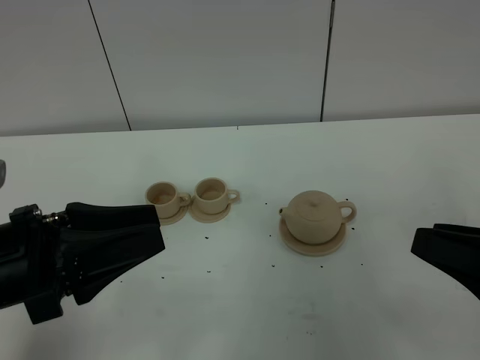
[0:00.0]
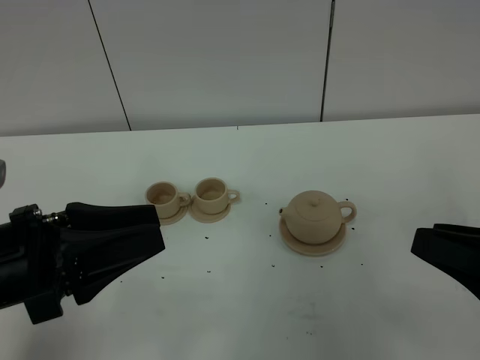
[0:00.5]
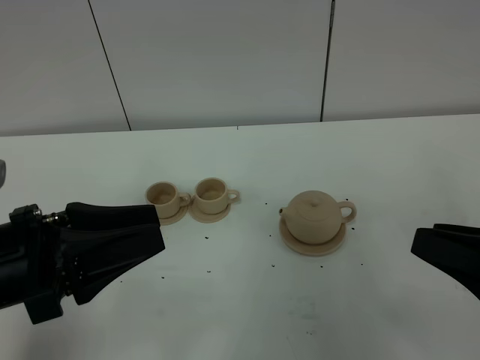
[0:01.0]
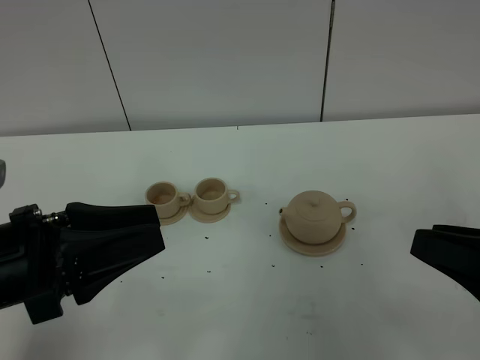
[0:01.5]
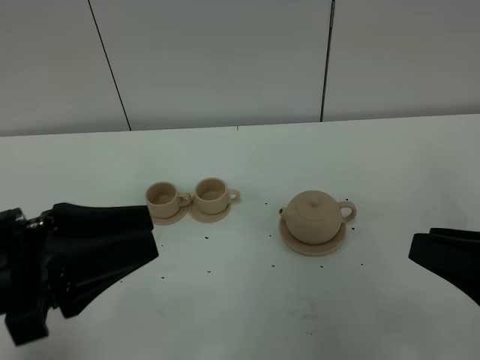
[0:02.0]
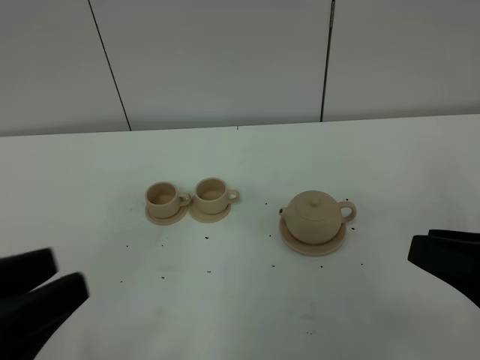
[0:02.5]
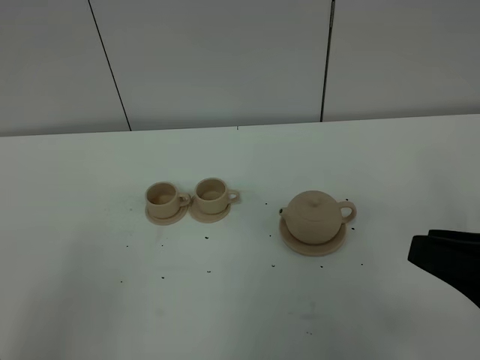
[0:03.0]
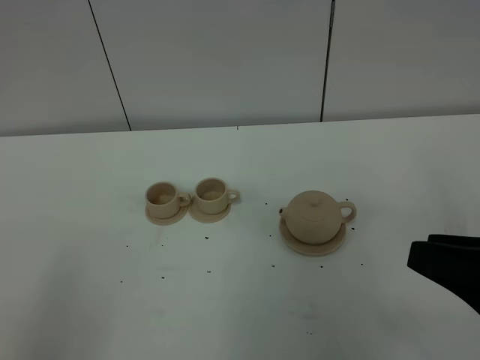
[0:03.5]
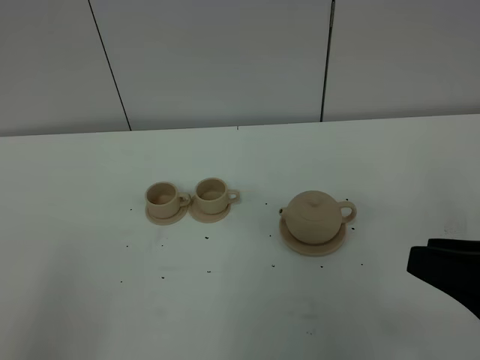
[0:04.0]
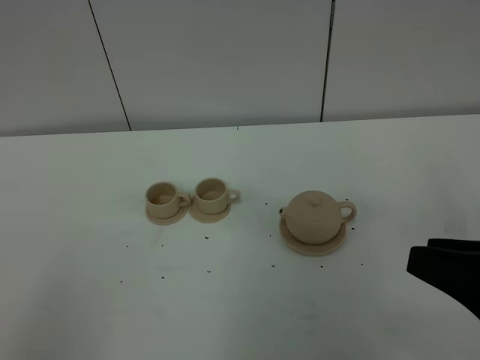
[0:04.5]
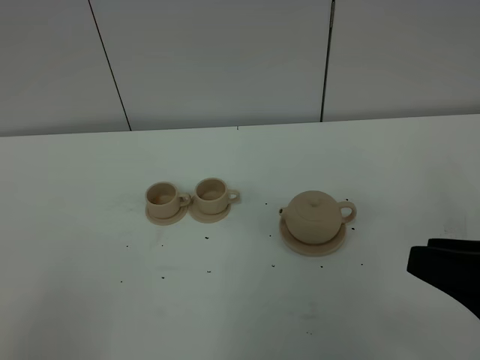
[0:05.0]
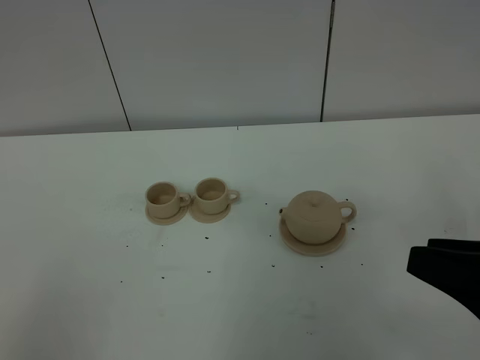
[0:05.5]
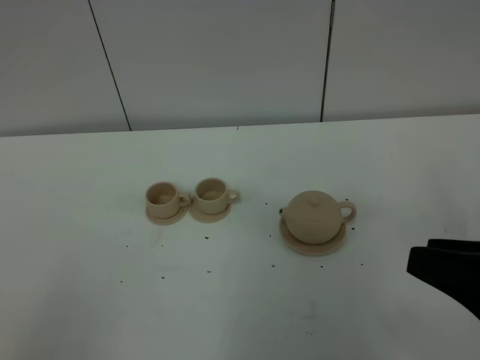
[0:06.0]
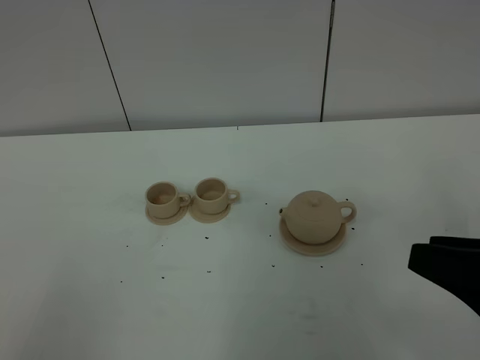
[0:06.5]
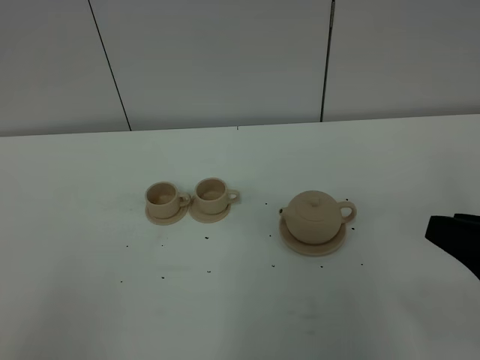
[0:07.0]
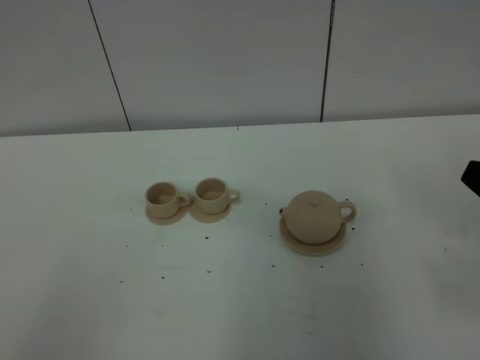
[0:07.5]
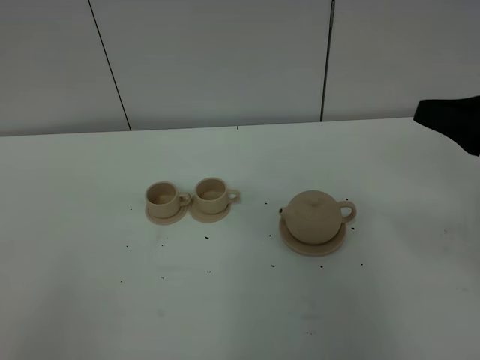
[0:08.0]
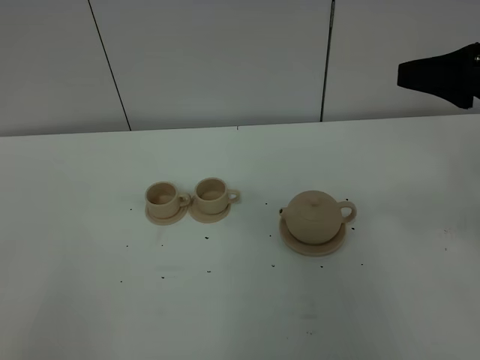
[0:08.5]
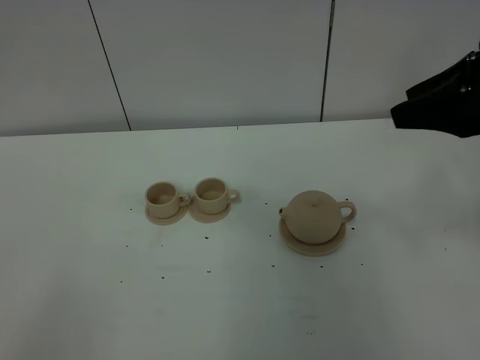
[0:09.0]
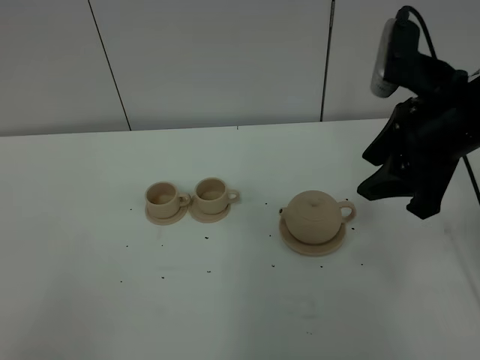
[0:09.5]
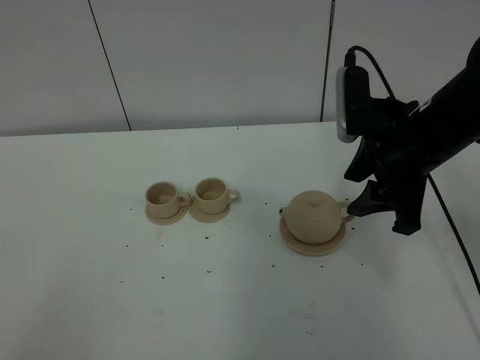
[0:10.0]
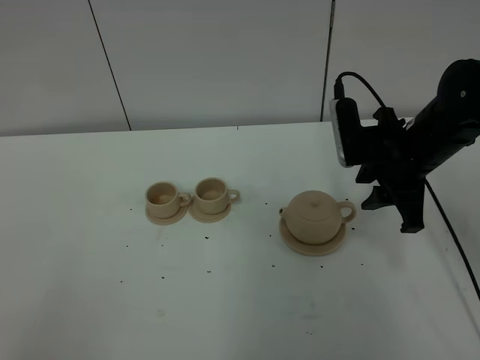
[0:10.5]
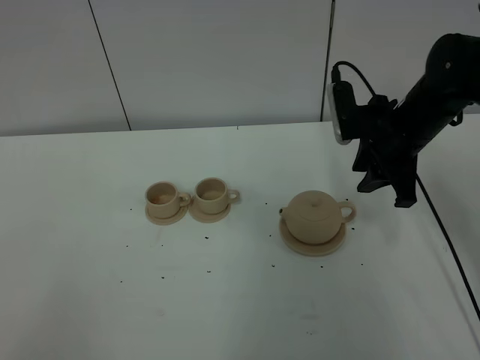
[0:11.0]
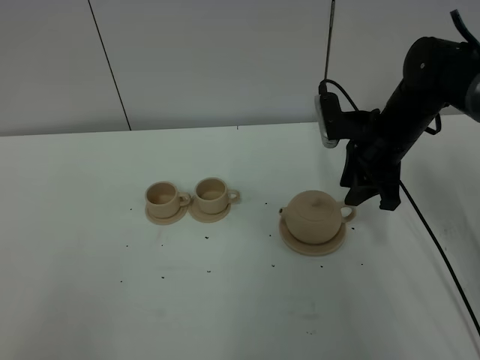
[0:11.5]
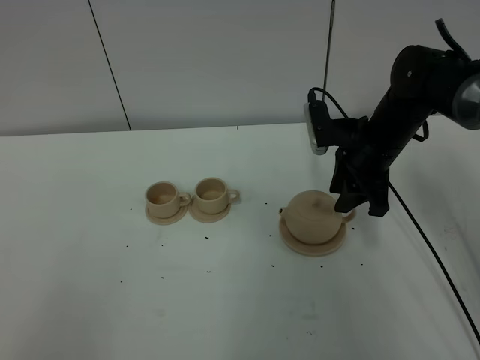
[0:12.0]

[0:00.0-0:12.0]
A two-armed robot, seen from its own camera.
Task of the whole recording: grasp the brown teapot and pour the tea into the two brown teacups one by one, put the brown teapot back in its original place.
0.0 to 2.0 s: There are only small adjustments of the grippers.
2.0 to 4.0 s: The left gripper moves backward and to the left, approximately 15 cm.
6.0 to 8.0 s: The right gripper moves forward, some 15 cm.
8.0 to 10.0 s: The right gripper goes some 10 cm to the left and forward.
10.0 to 12.0 s: The right gripper shifts about 15 cm forward and downward.

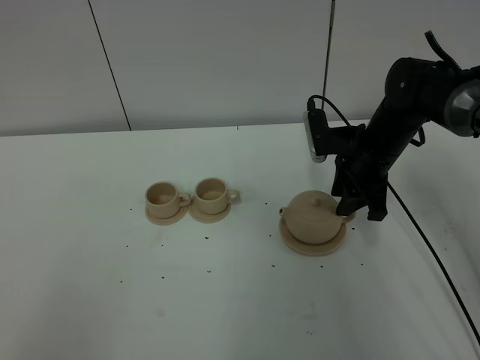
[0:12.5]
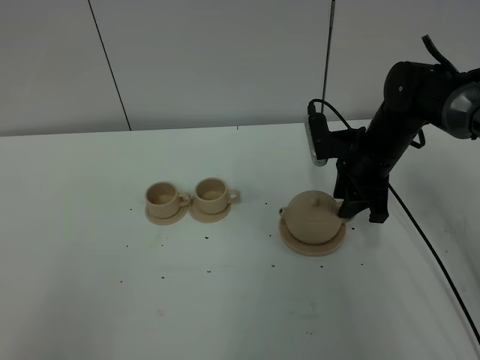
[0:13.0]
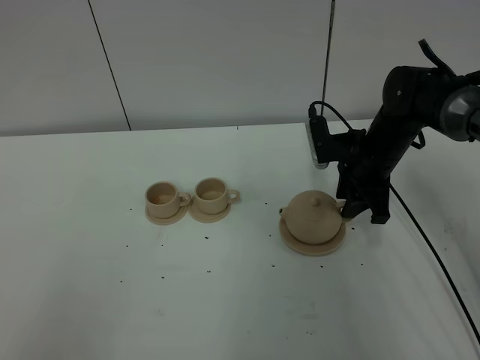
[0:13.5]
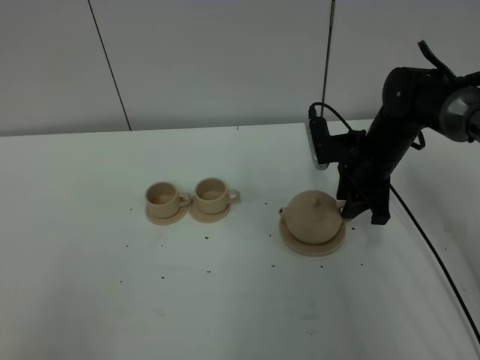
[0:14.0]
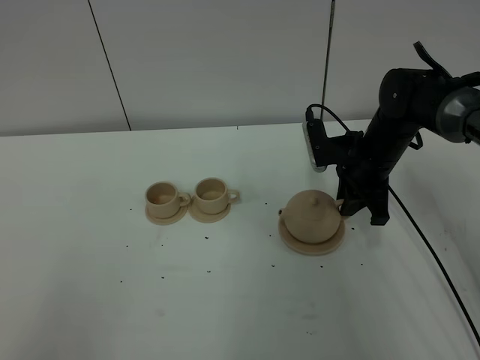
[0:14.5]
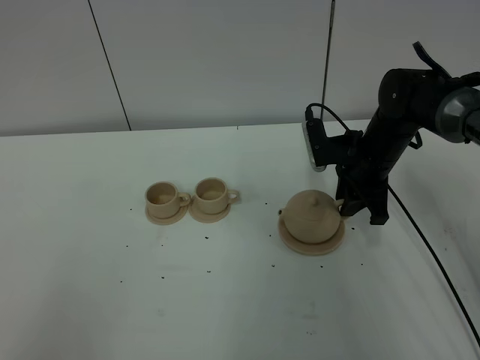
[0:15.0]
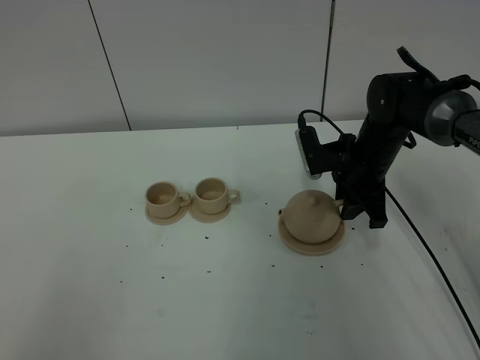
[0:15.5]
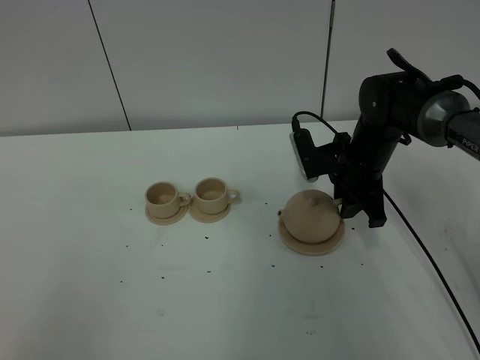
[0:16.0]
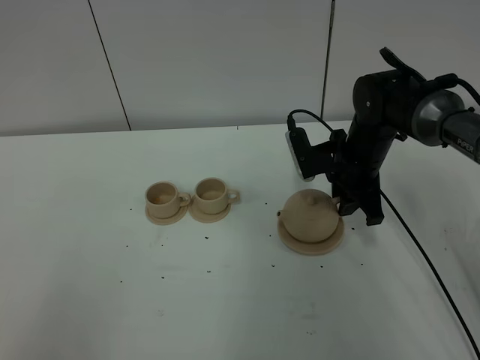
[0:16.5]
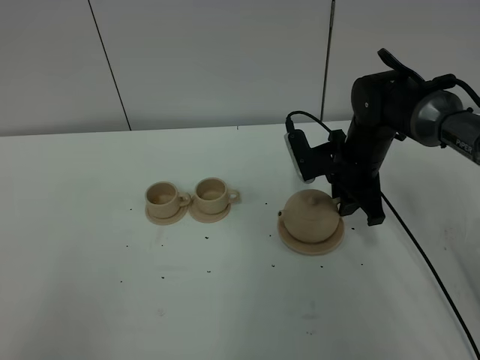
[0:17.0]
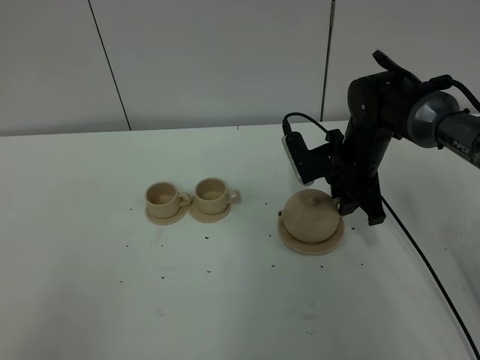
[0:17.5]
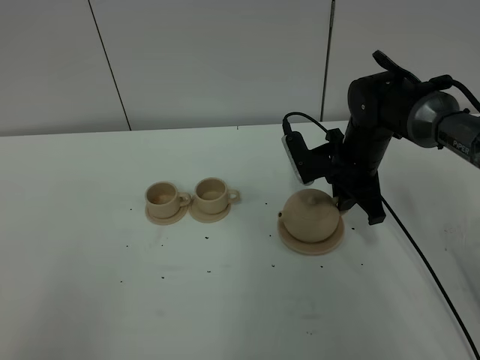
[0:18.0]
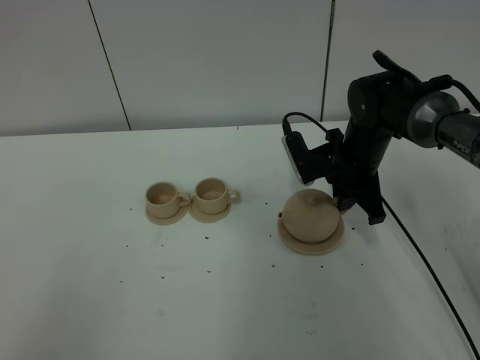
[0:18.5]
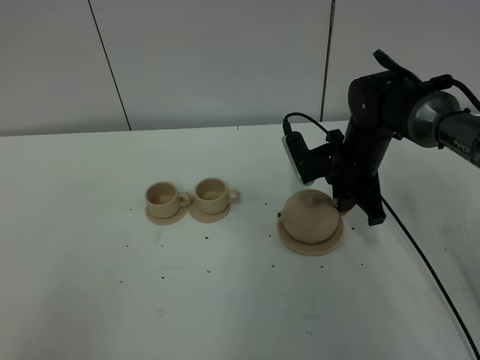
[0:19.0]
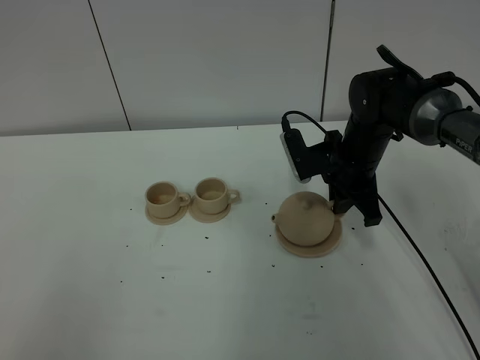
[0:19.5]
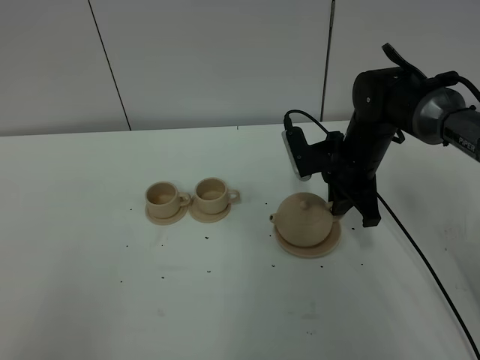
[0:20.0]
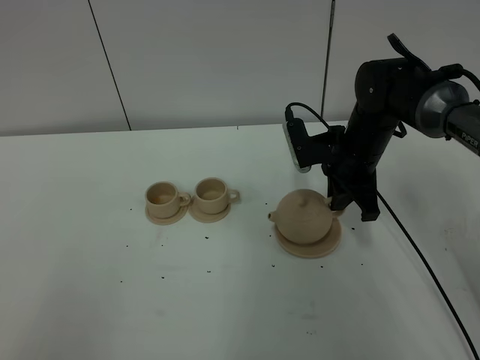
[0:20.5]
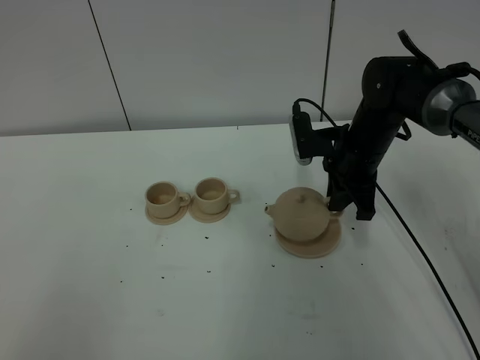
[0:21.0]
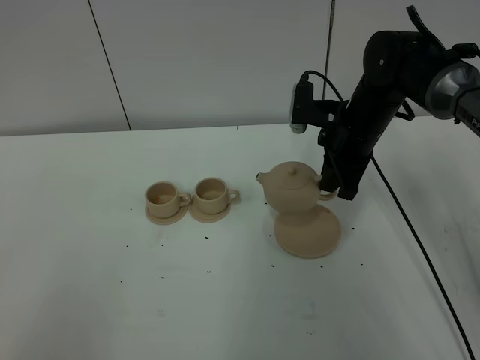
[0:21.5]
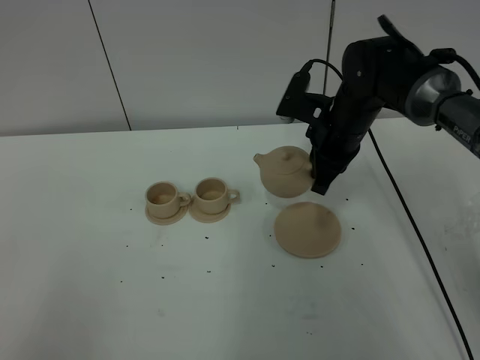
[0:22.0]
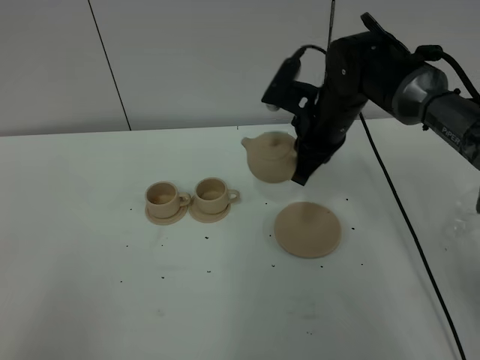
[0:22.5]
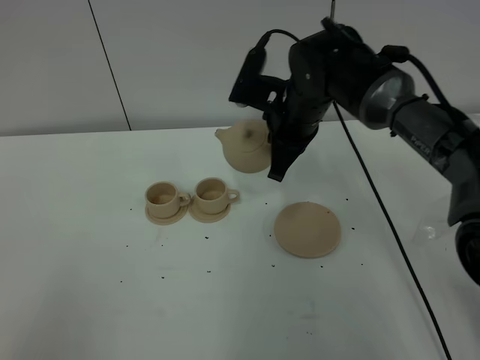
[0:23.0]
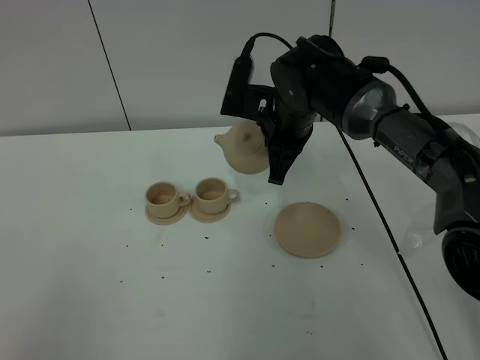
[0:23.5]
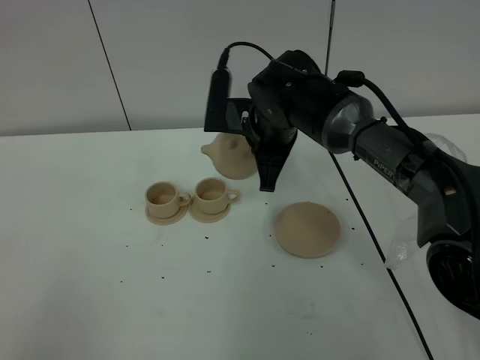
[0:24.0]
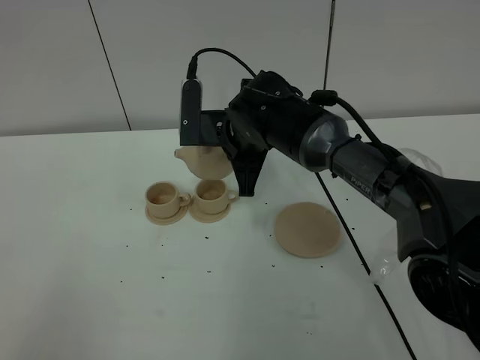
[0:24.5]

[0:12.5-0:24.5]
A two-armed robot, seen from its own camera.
Task of the whole recording: grasp the brown teapot and pour the tea into the two brown teacups one by one, put the brown teapot back in its original place.
Step, 12.5 to 20.5 s: Pick up the teapot with the right gripper.
12.5 to 14.5 s: The right gripper closes its fingers.
14.5 to 16.5 s: The grippers move only a little.
16.5 to 18.5 s: The right gripper closes its fingers.
18.5 to 20.5 s: The grippers stay close to where they were, moving slightly.
20.5 to 22.5 s: The right gripper goes roughly 5 cm upward.
22.5 to 24.5 s: The right gripper goes approximately 10 cm to the left.

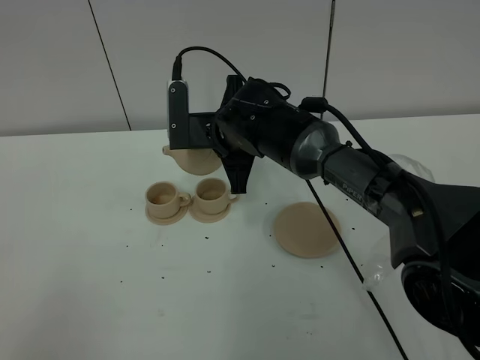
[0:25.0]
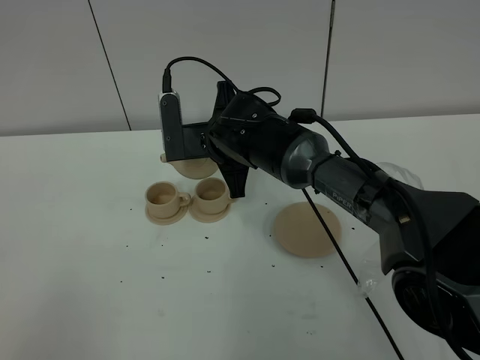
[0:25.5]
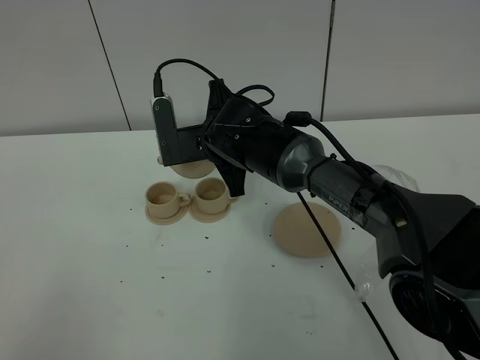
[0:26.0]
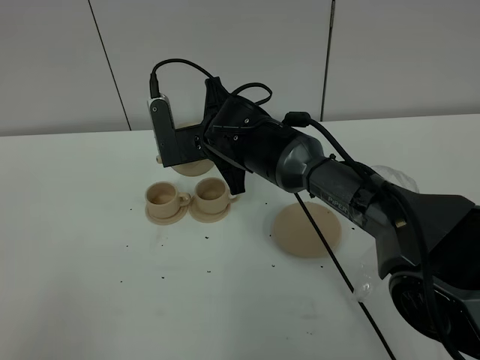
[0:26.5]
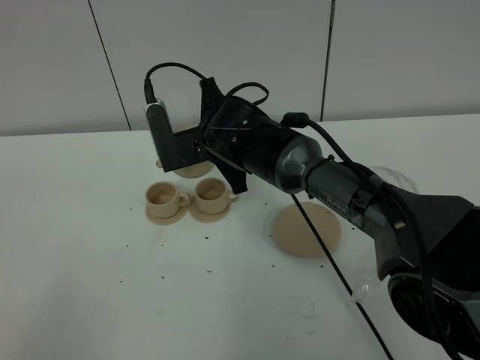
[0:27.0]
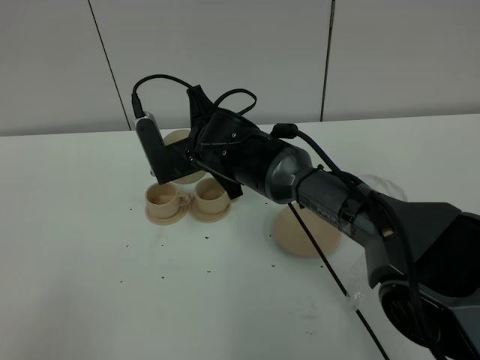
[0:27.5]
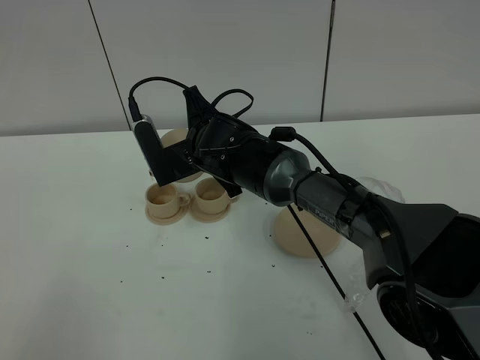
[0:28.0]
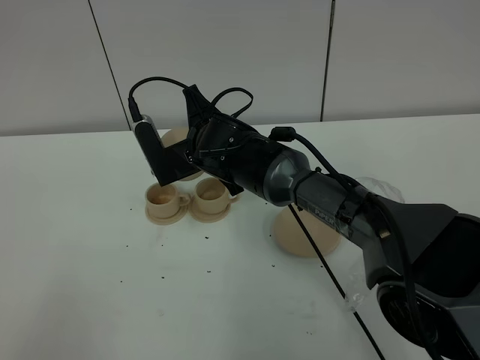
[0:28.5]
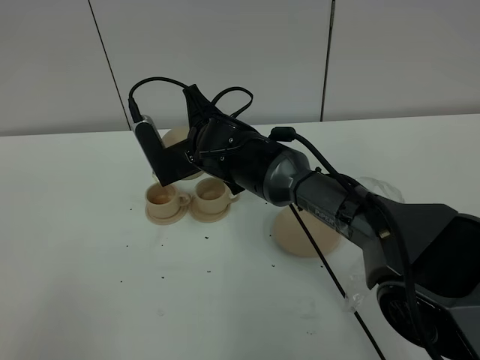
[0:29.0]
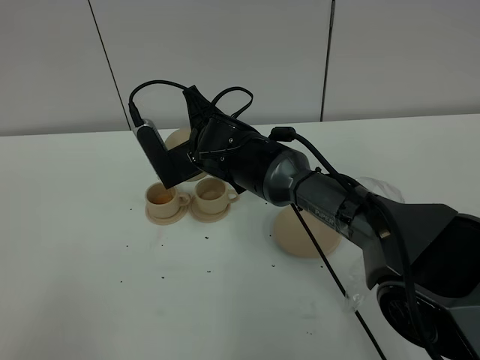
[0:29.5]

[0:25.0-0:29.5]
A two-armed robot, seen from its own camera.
Task of the whole recording: grasp the brown teapot and pour the tea into the two brown teacups one by one, put the brown teapot back in its original place.
25.0 to 27.0 s: The grippers make only small movements.
27.0 to 29.5 s: The grippers stay close to where they were, moving slightly.
